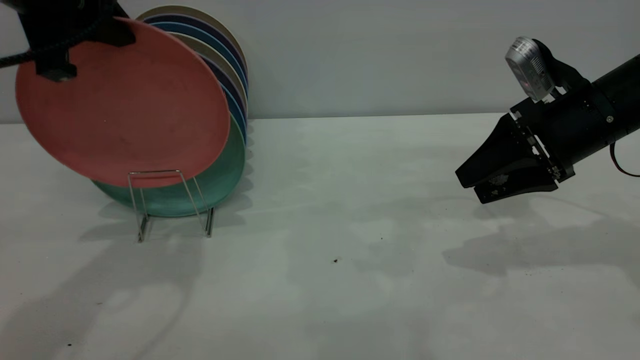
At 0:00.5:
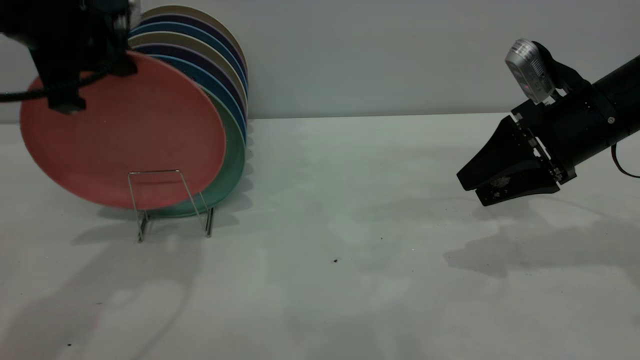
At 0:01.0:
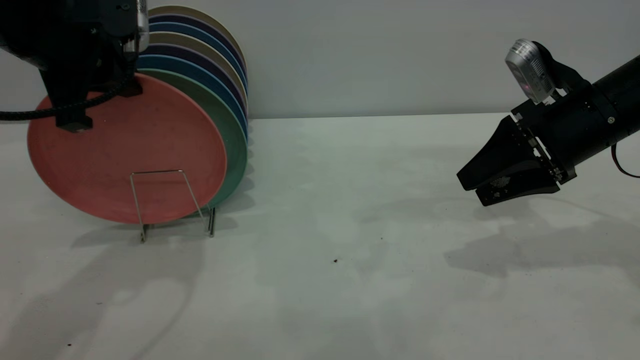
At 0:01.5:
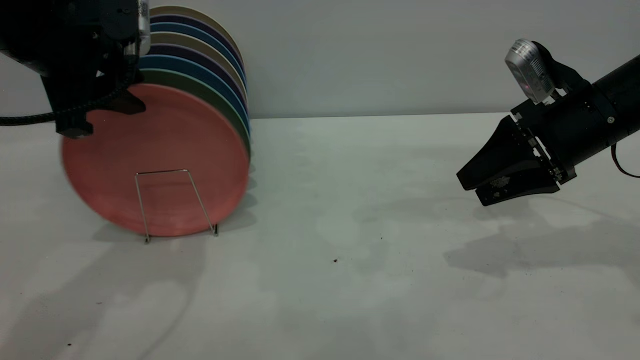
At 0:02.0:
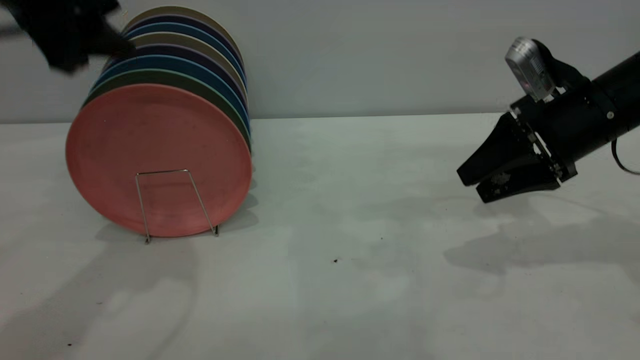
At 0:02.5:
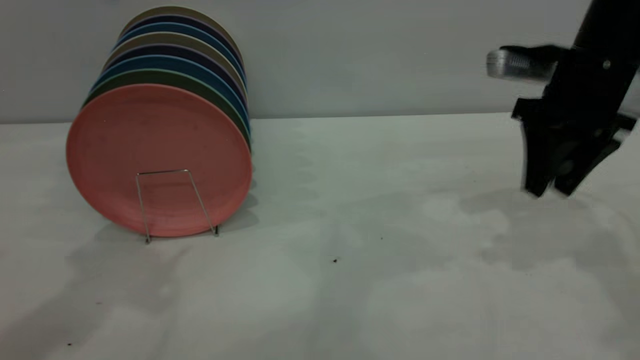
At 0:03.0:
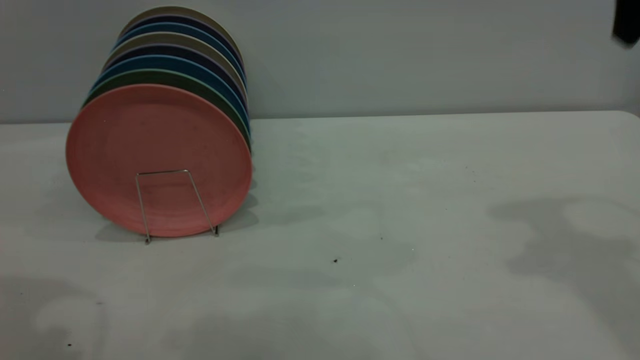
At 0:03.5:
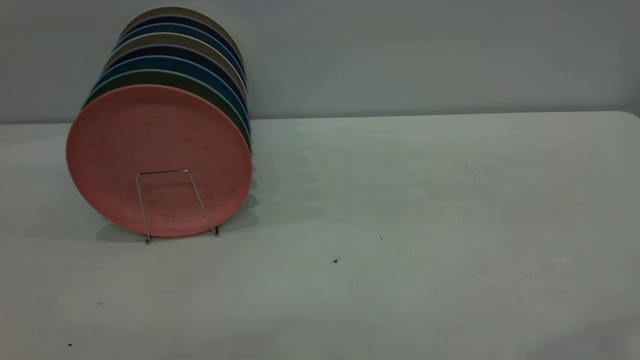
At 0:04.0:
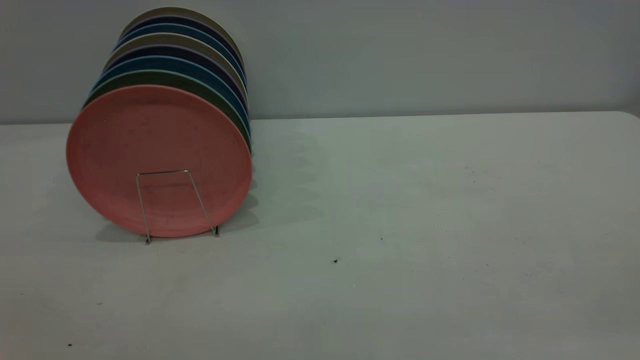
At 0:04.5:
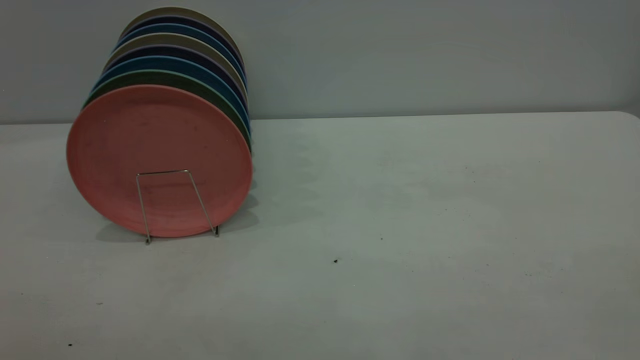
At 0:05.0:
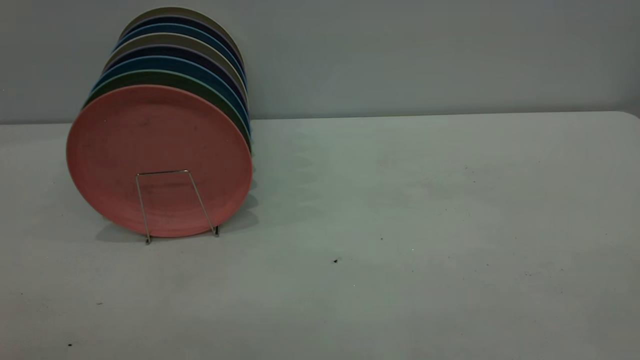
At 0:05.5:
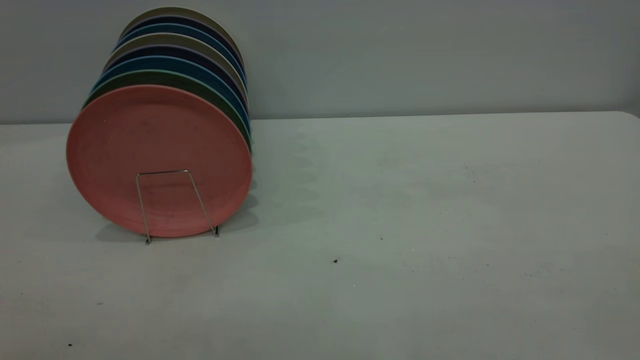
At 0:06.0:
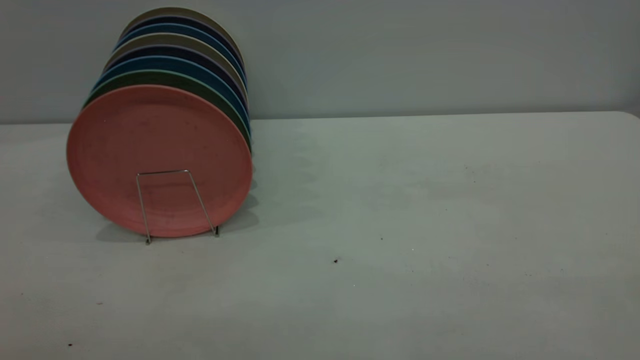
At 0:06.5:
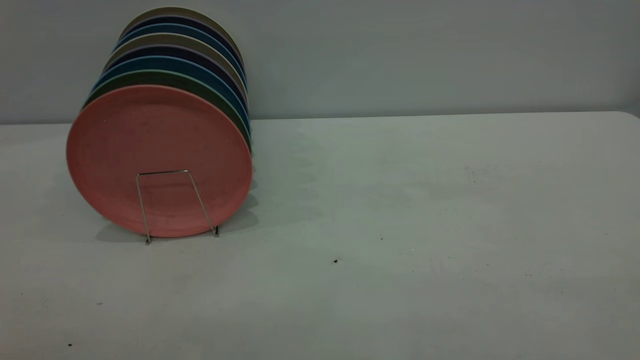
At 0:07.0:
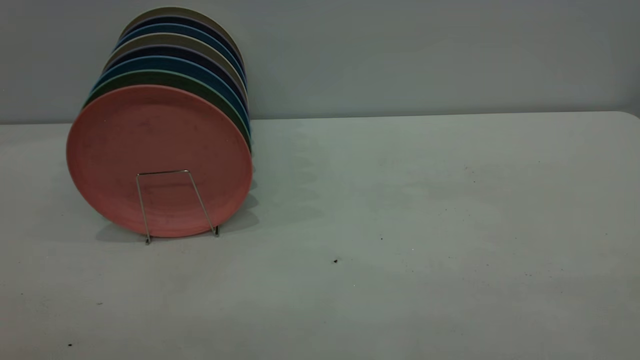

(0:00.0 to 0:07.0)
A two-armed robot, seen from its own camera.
Task of the whole recording: the right gripper grasp the pink plate, the right gripper pass the pink plate to the left gripper, and the left gripper place the pink plate on the plate rack.
Step, 0:00.0 - 0:02.5: Place the plate on the shelf.
0:00.0 - 0:02.0: The left gripper opens up.
0:02.0 - 0:03.5: The right gripper shifts about 35 cm upward and backward; the left gripper travels backward and upward by some 25 cm.

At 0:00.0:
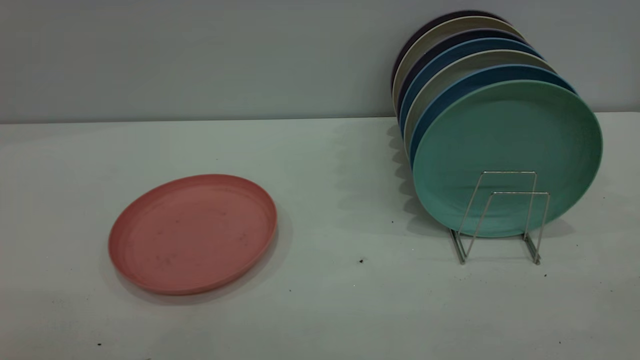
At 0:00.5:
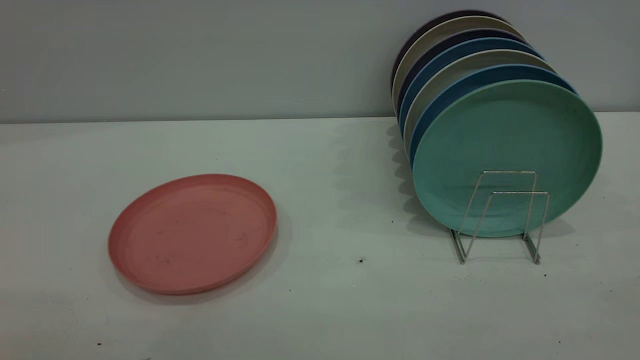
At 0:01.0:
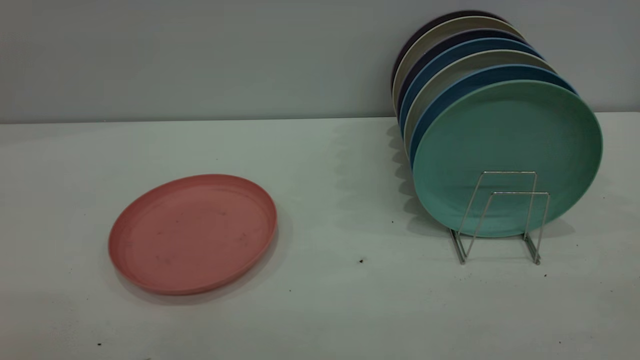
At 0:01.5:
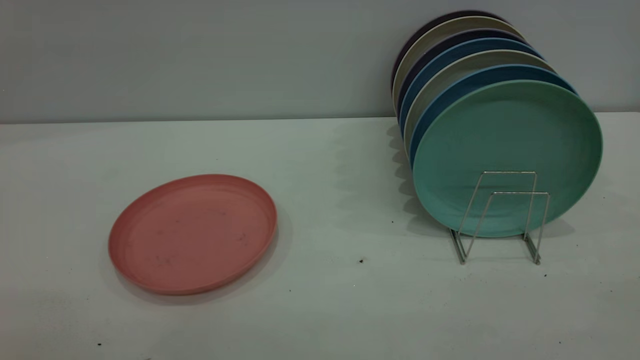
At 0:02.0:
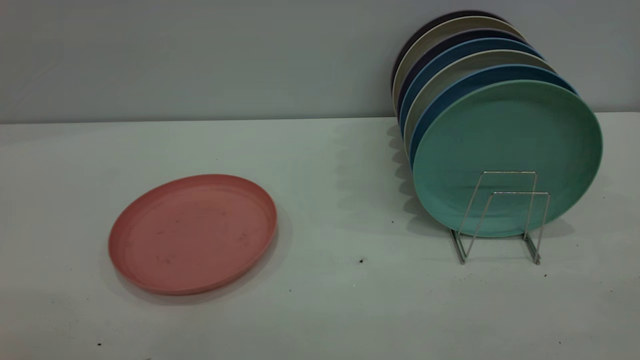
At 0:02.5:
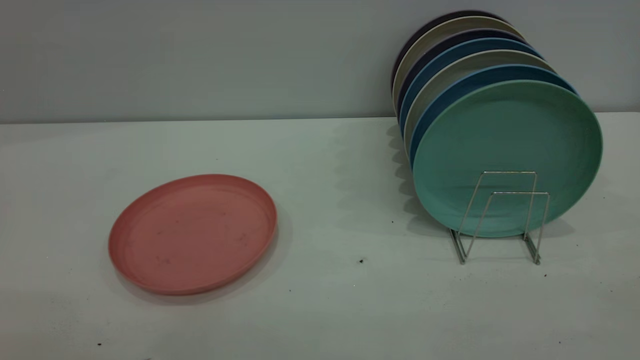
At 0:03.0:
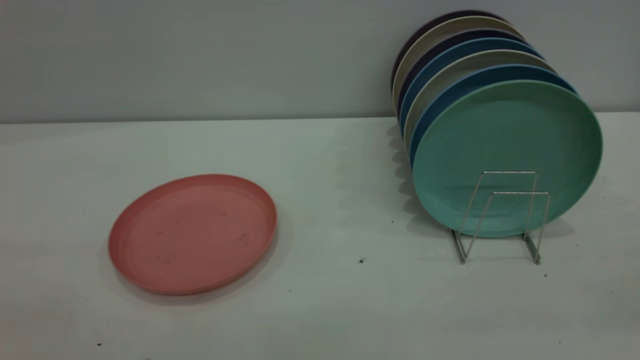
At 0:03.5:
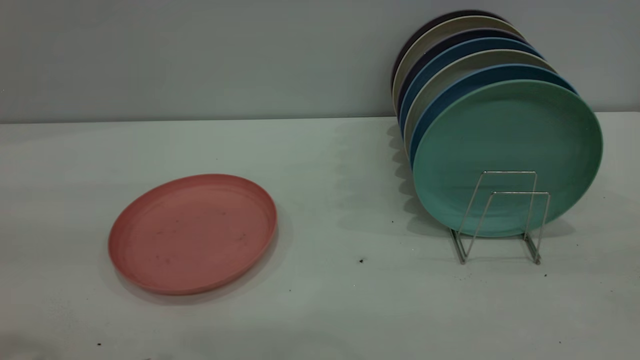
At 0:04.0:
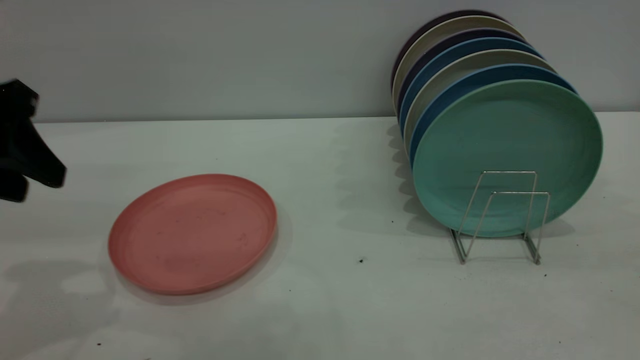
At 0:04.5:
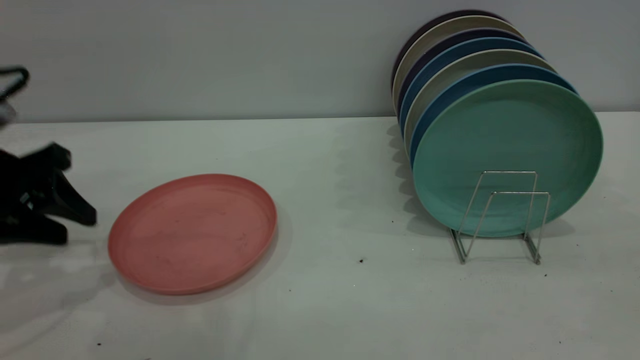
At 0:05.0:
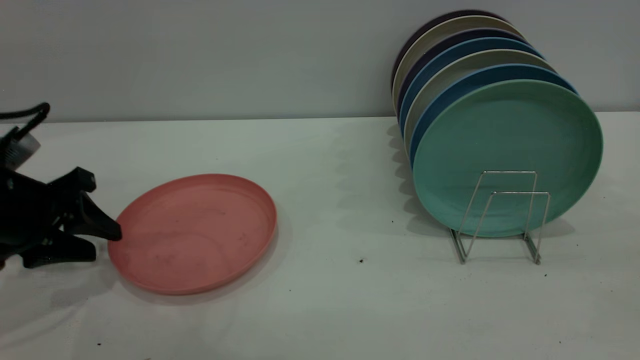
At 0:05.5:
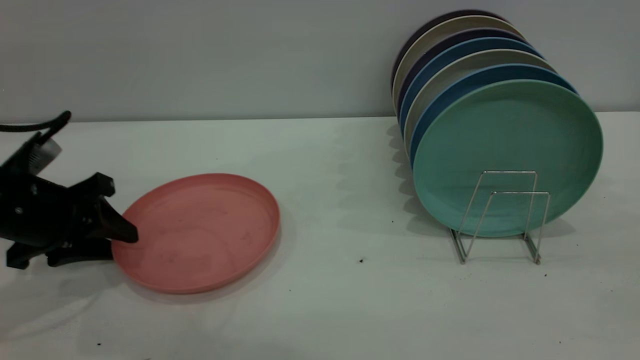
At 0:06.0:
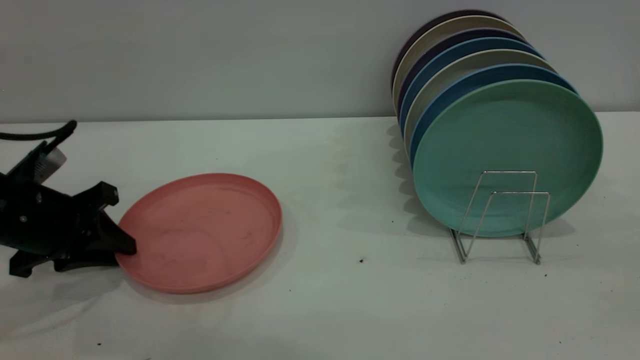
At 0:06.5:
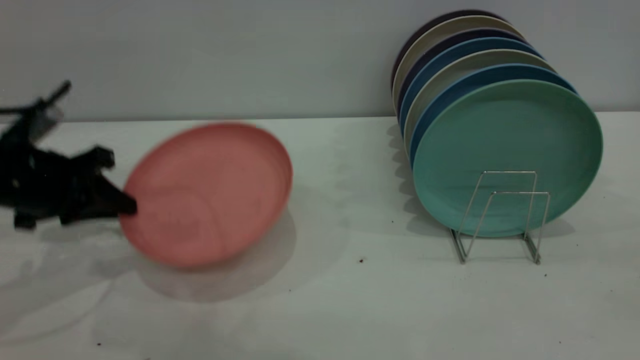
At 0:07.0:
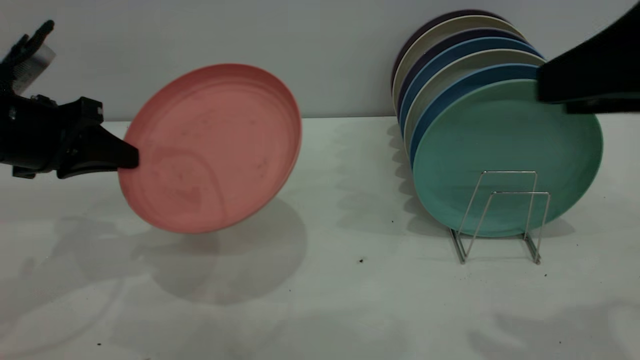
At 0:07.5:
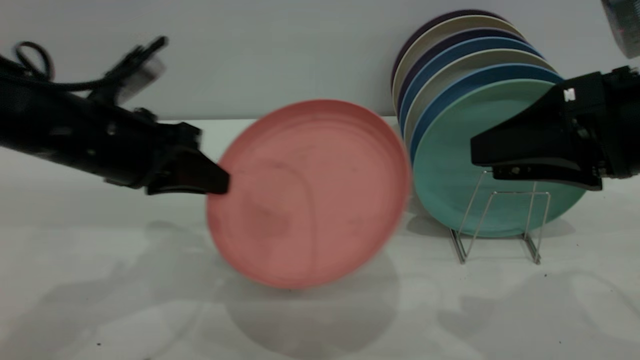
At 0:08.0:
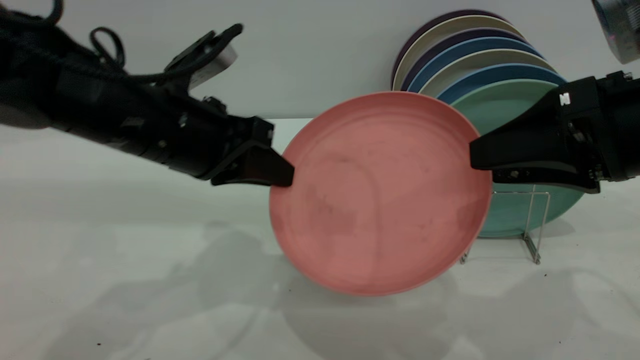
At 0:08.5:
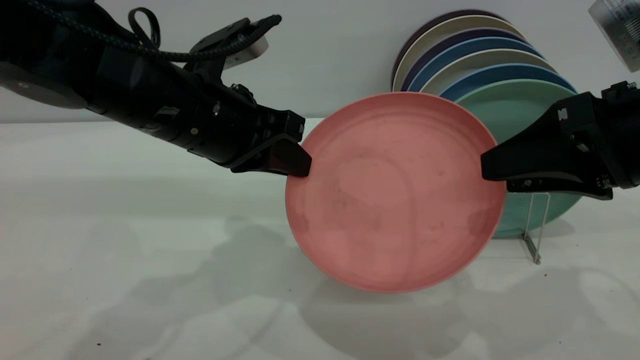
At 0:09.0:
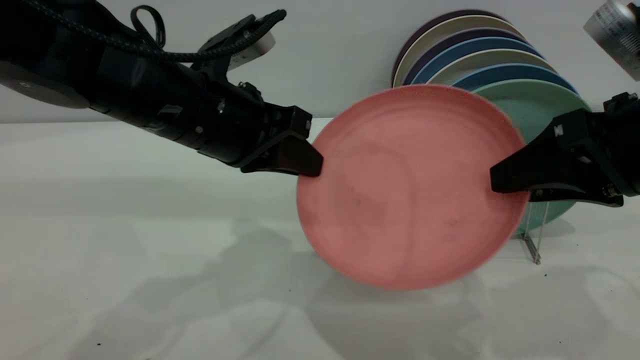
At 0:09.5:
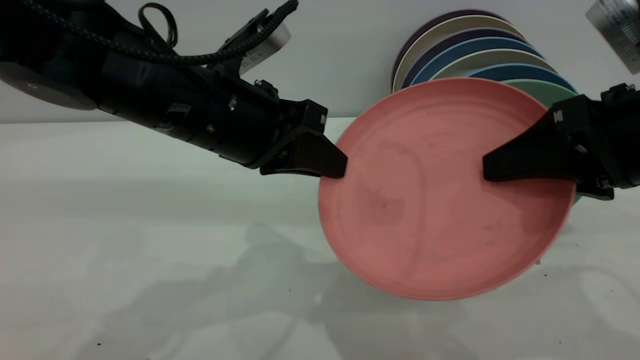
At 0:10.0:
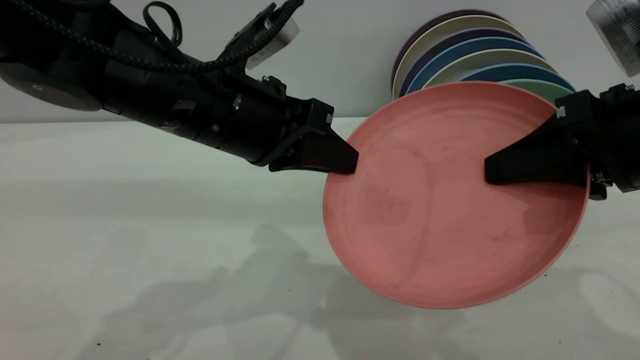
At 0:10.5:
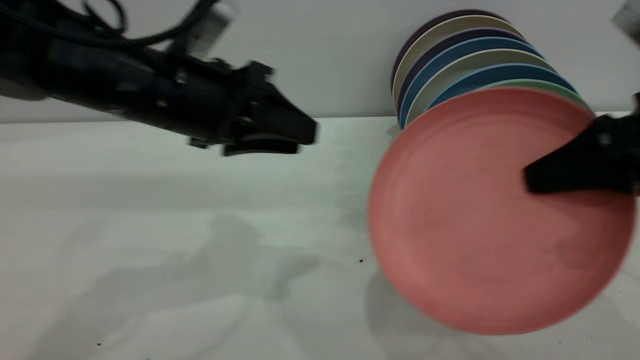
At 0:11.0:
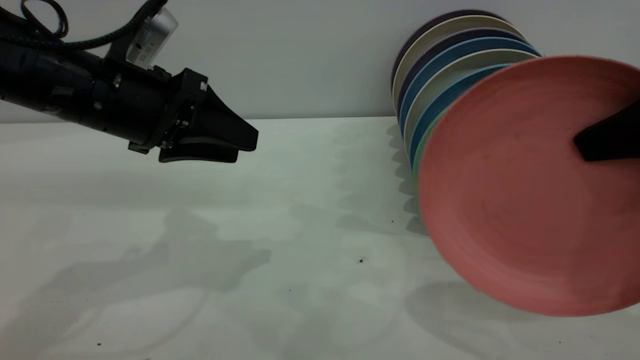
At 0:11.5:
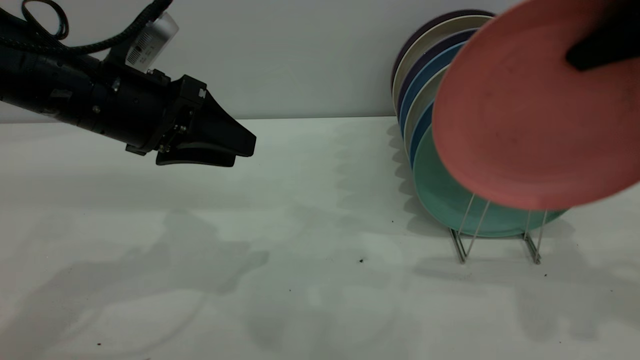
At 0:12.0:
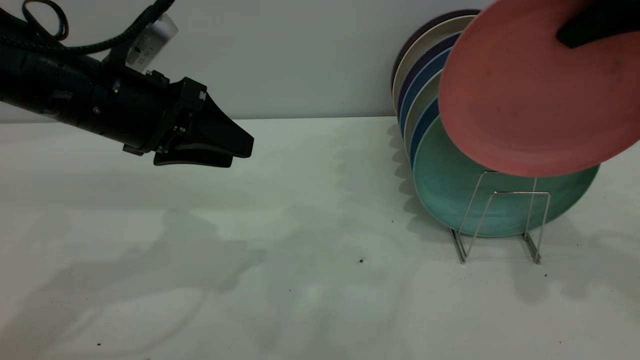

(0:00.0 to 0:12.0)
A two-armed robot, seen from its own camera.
Task of the whole recording: put the plate on the plate rack.
Step, 0:00.0 - 0:06.0: Pick up the plate with the left gripper.
Step, 0:07.0 - 0:10.0: Pass the plate from the left gripper to the right gripper.
0:00.0 - 0:02.0: Both grippers stay put.
0:02.0 - 0:04.0: The left gripper shifts approximately 30 cm forward.
0:04.0 - 0:06.0: The left gripper moves downward, roughly 15 cm, and closes up.
0:06.0 - 0:08.0: The left gripper heads to the right and upward, covering some 20 cm, and closes. The right gripper goes about 15 cm downward and forward.
0:08.0 - 0:10.0: The right gripper closes its fingers.
0:10.0 - 0:12.0: The right gripper travels upward and forward by roughly 15 cm. Meanwhile the left gripper moves to the left, approximately 10 cm, and opens its fingers.

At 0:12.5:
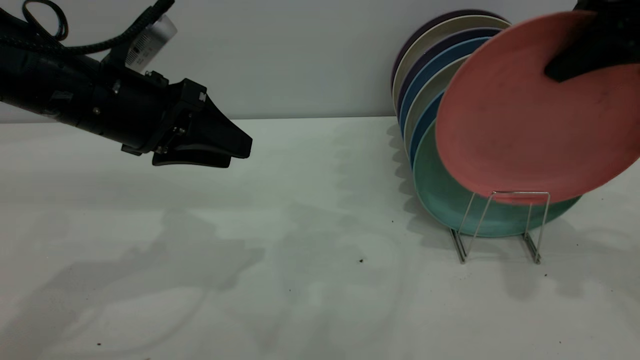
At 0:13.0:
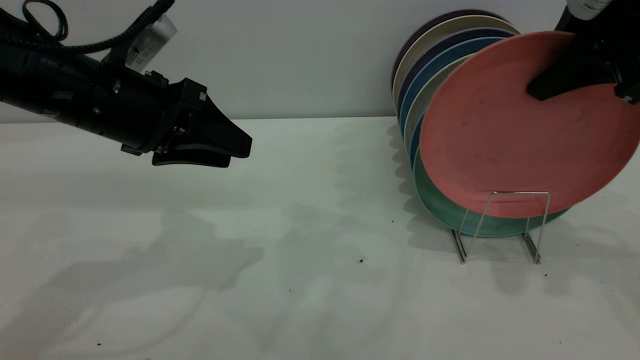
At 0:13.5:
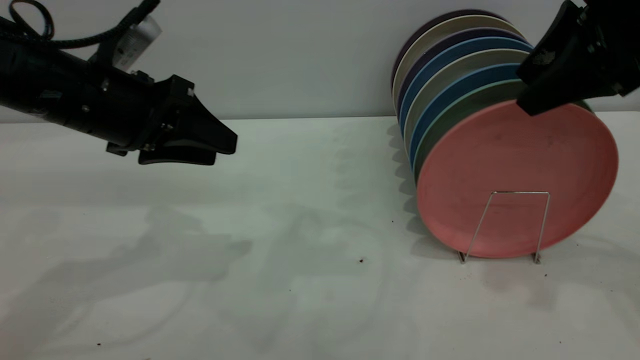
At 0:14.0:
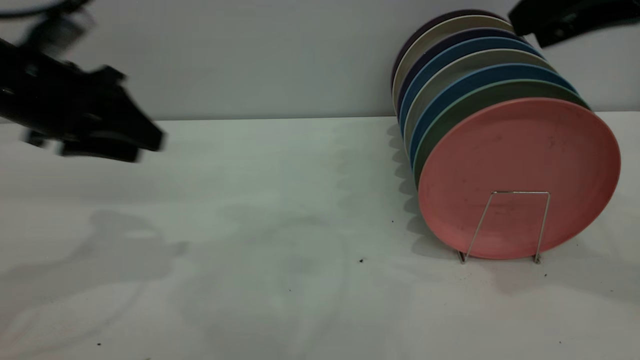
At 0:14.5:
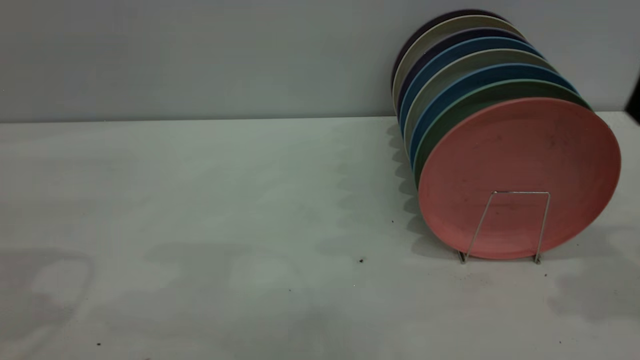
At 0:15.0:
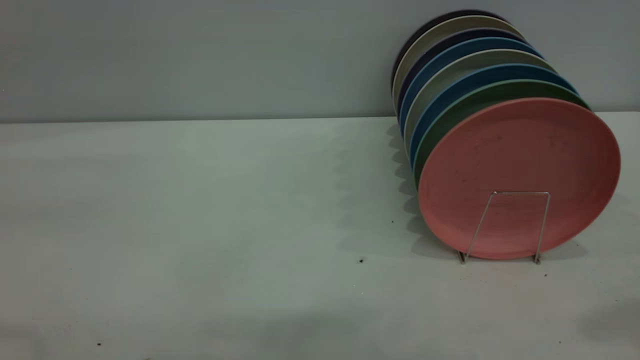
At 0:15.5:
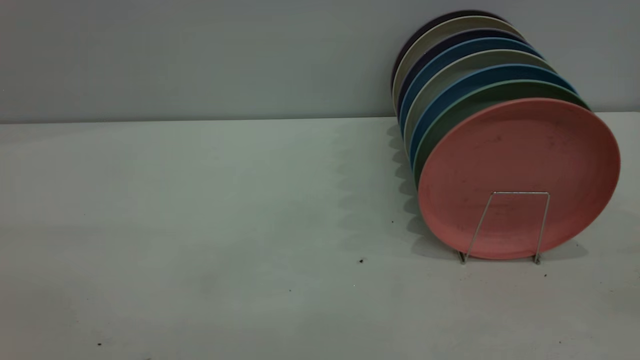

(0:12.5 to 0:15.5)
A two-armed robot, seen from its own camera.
Task of the whole recording: put the plate on the plate rack.
0:12.5 - 0:14.0: The left gripper goes roughly 10 cm to the left; the right gripper opens its fingers.
0:14.0 - 0:15.5: The left gripper heads backward and upward, covering some 30 cm, while the right gripper moves backward, about 25 cm.
